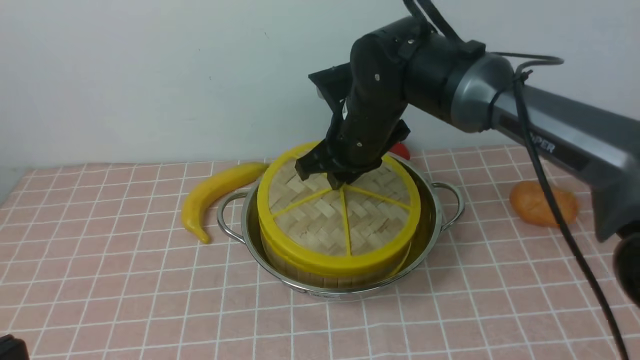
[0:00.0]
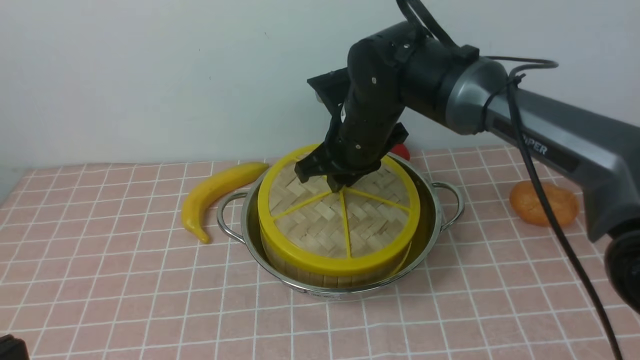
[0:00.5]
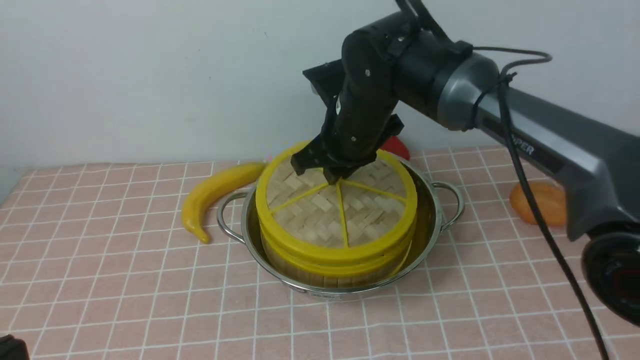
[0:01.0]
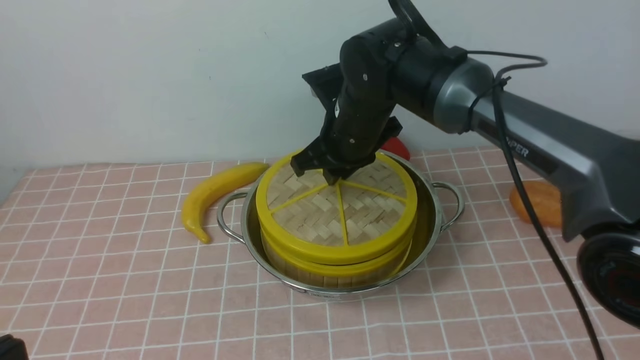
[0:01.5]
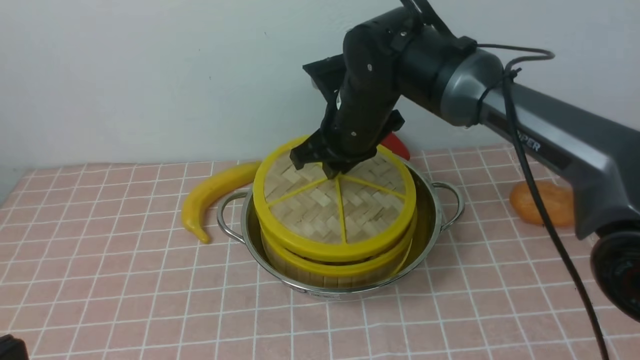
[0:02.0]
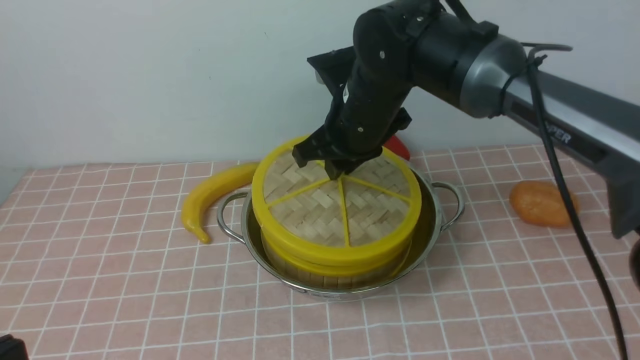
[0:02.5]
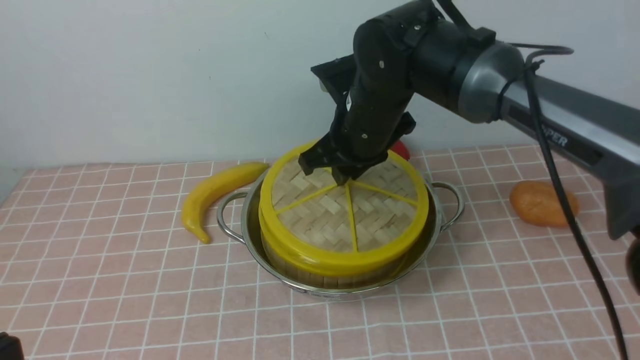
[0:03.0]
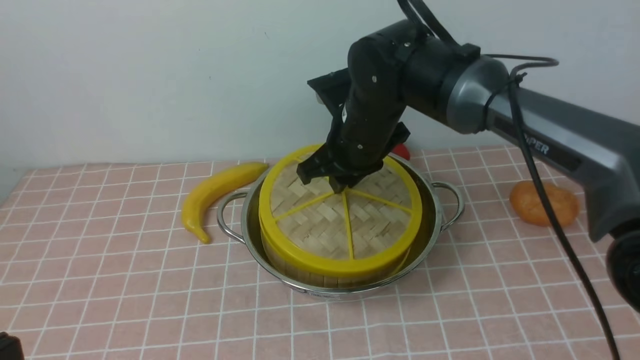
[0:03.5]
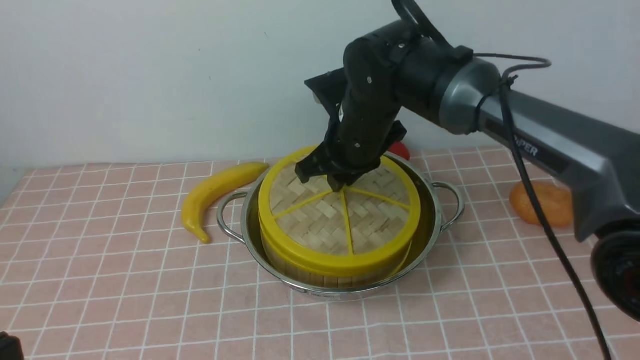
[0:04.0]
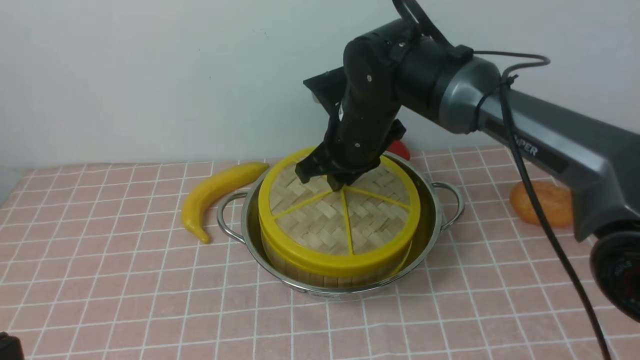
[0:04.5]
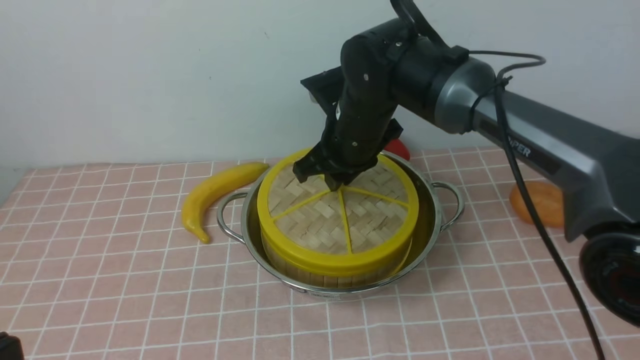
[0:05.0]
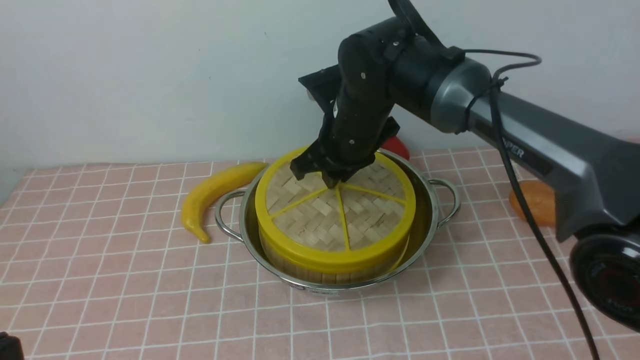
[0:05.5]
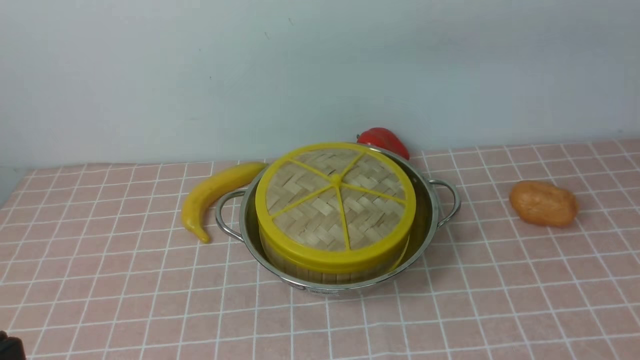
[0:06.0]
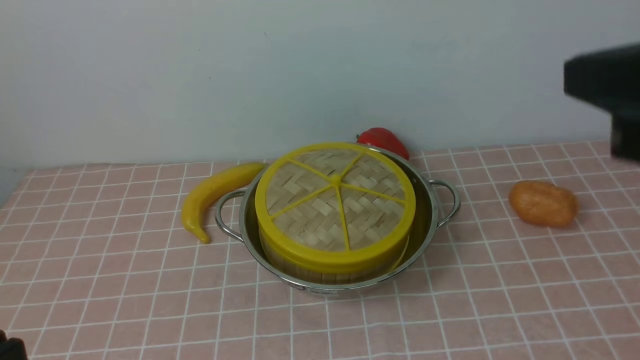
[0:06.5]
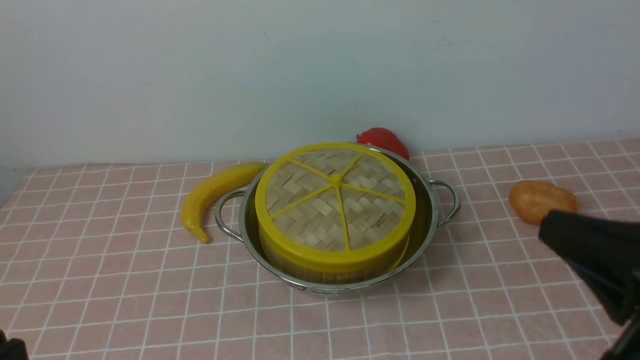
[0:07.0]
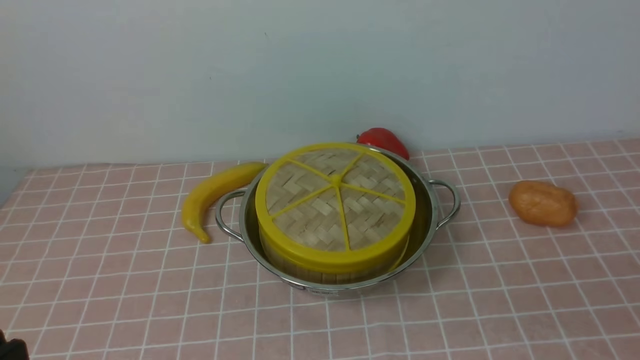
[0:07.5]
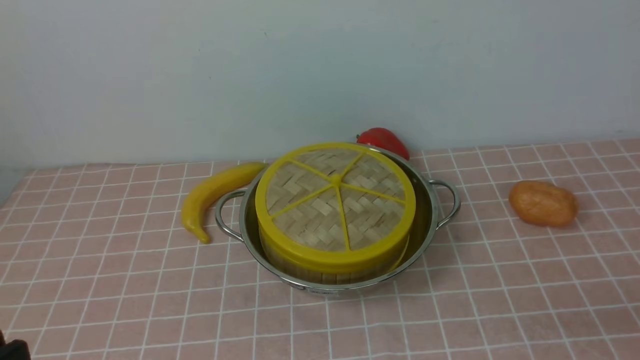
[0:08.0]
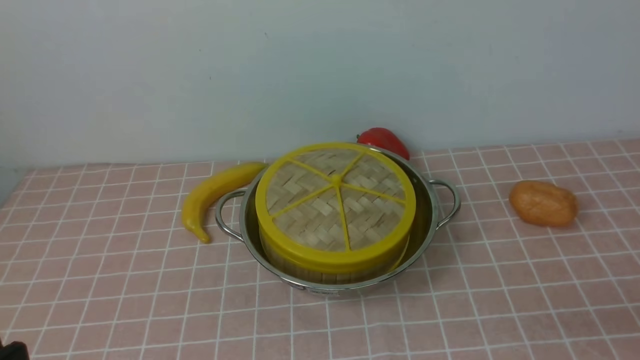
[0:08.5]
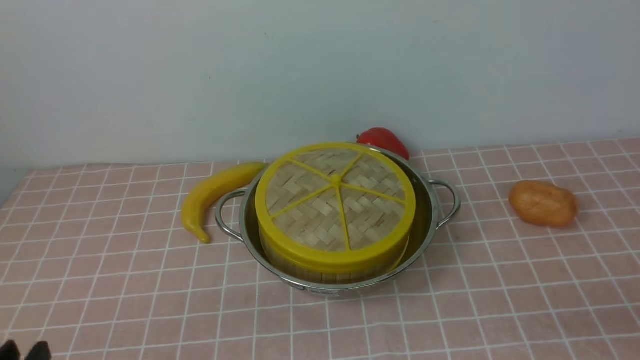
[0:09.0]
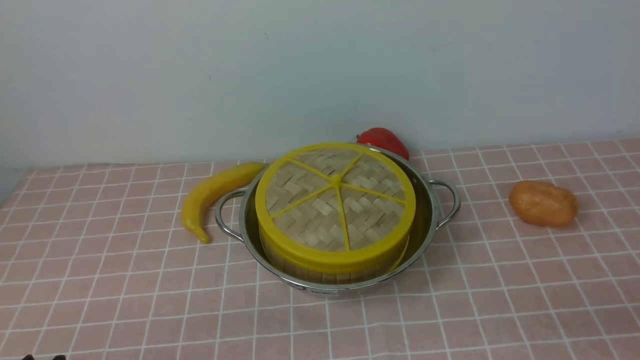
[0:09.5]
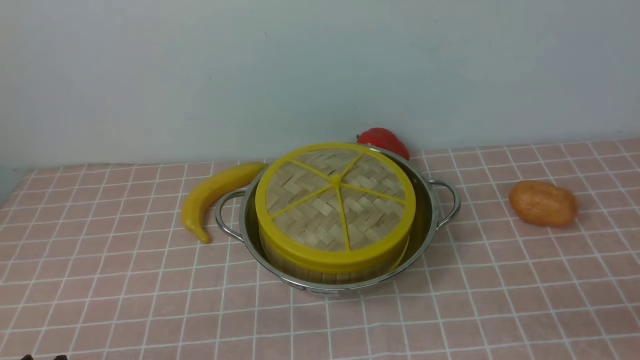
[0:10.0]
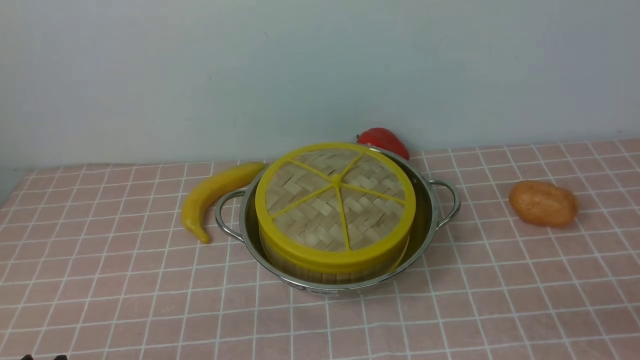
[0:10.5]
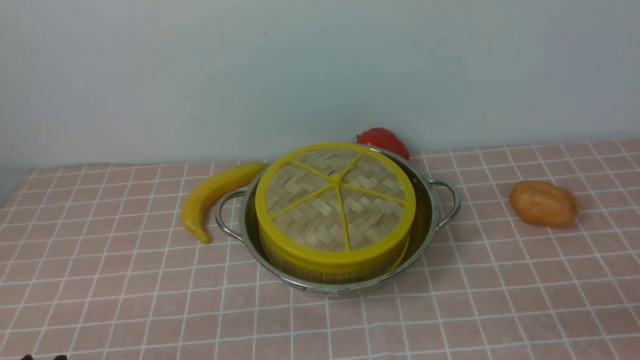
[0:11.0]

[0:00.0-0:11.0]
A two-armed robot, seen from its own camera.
Task of the whole recording: place the steamer in the pot on the pink tablecloth, and put the lid on the steamer.
Step, 0:00.0 to 0:05.5: use the right arm to place the steamer lid on the steamer.
0:00.0 to 0:05.5: There are only small adjustments of the grippers.
0:05.5 to 0:07.5: The right gripper travels backward and to the right by roughly 40 cm, and closes up.

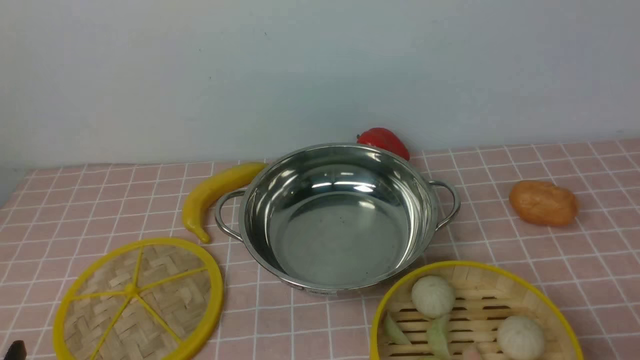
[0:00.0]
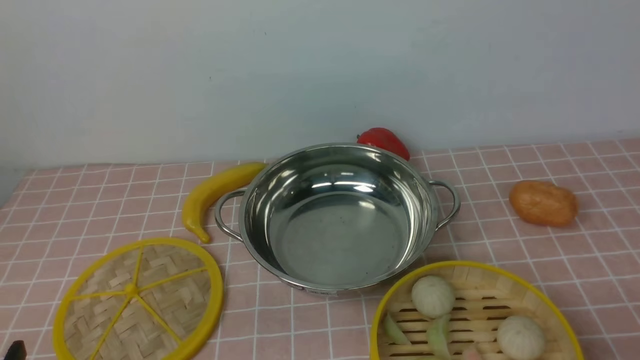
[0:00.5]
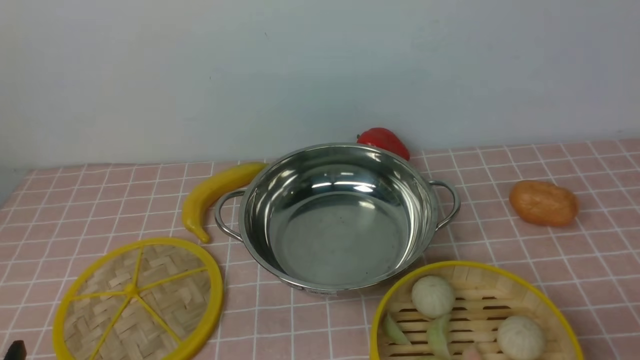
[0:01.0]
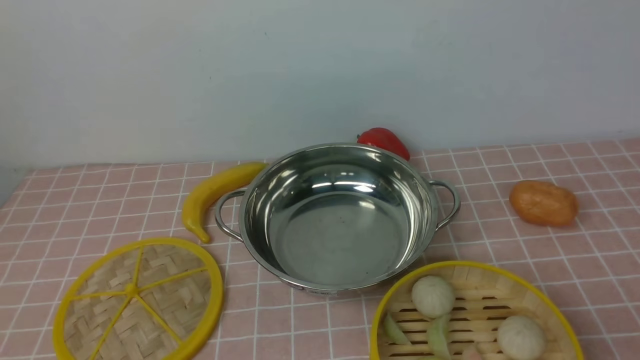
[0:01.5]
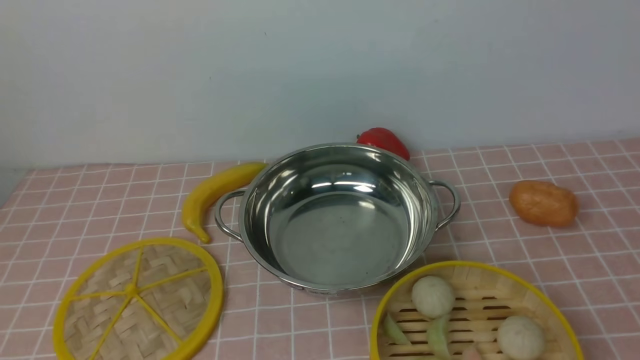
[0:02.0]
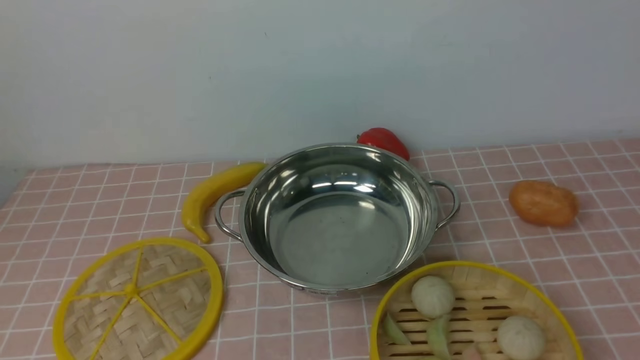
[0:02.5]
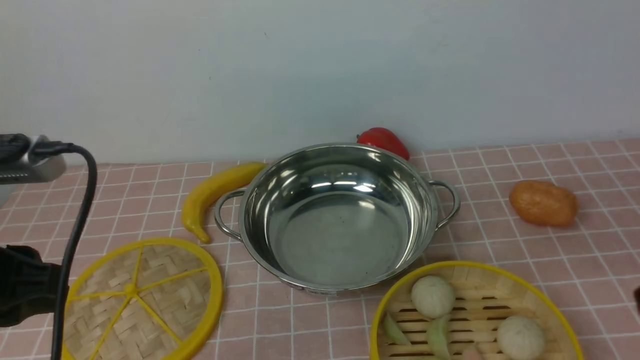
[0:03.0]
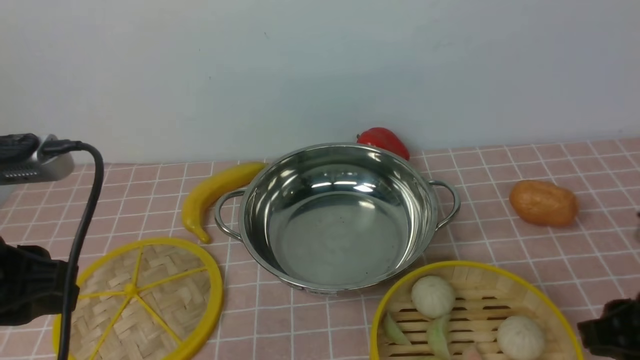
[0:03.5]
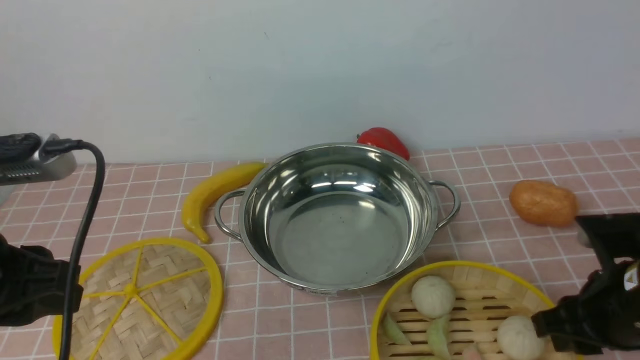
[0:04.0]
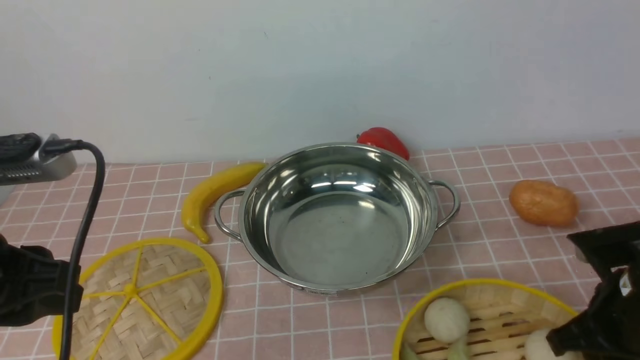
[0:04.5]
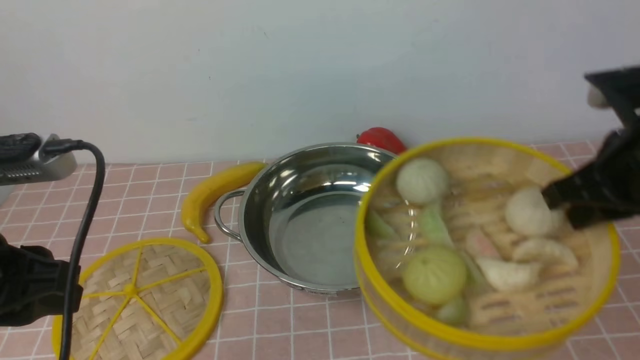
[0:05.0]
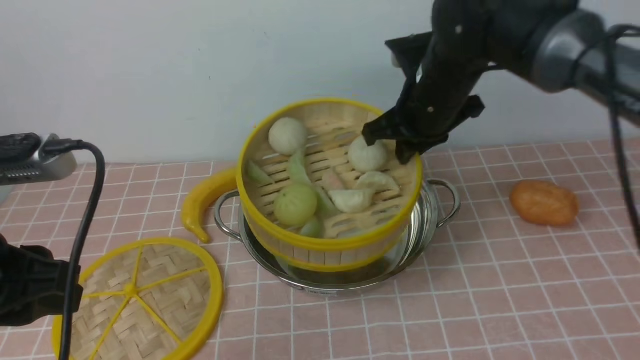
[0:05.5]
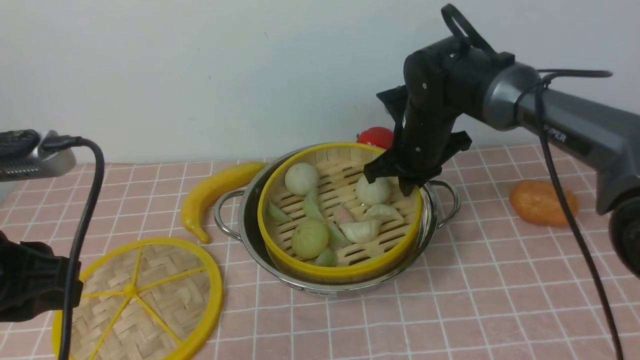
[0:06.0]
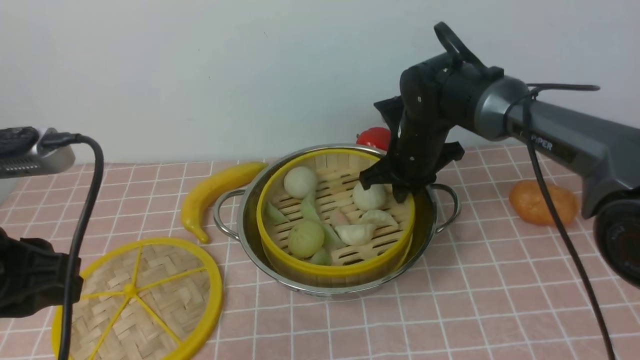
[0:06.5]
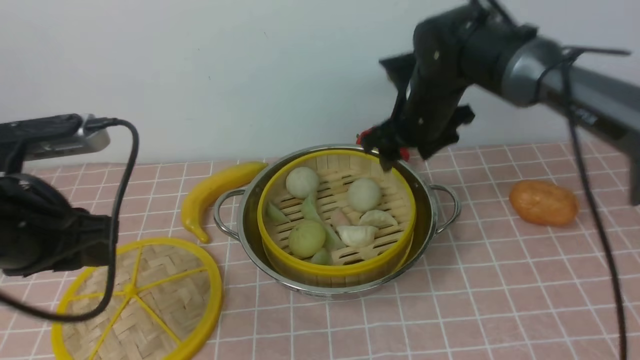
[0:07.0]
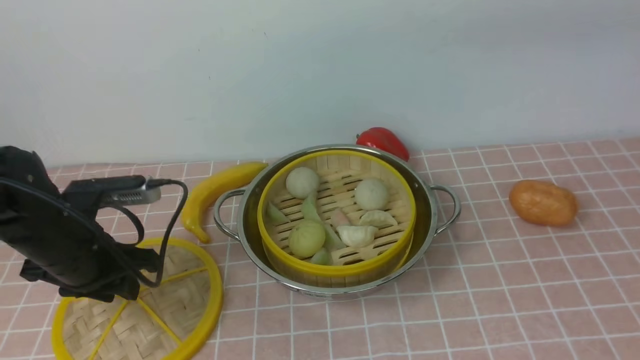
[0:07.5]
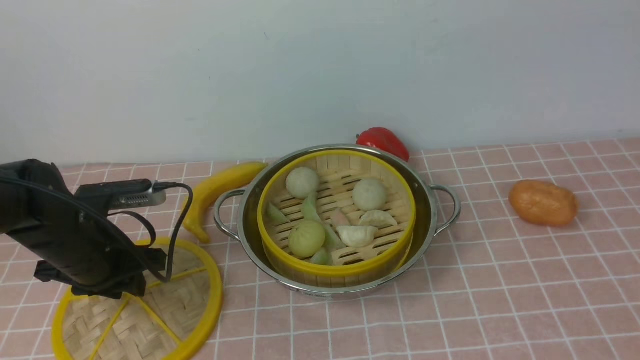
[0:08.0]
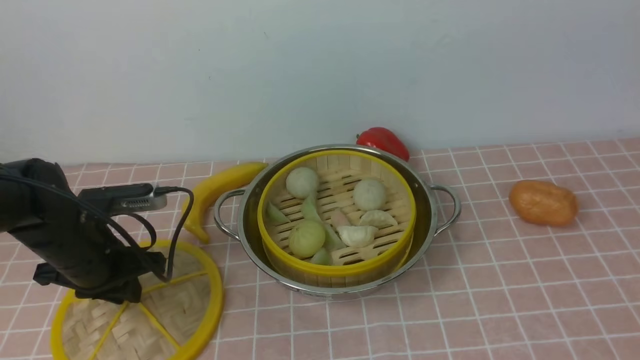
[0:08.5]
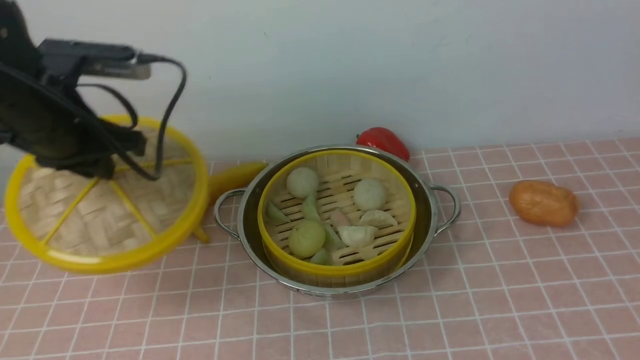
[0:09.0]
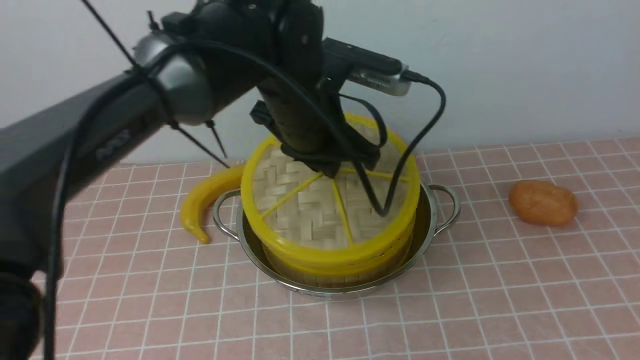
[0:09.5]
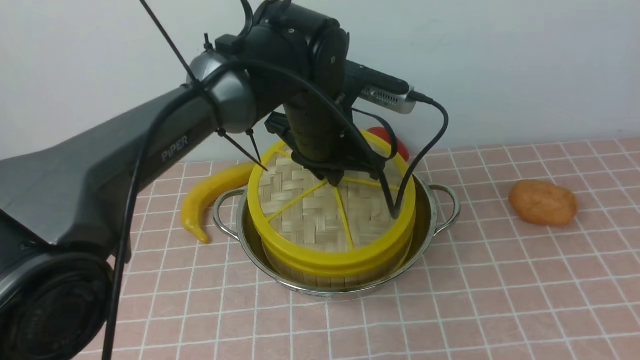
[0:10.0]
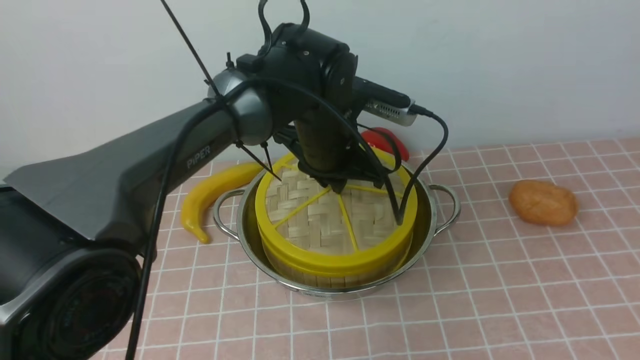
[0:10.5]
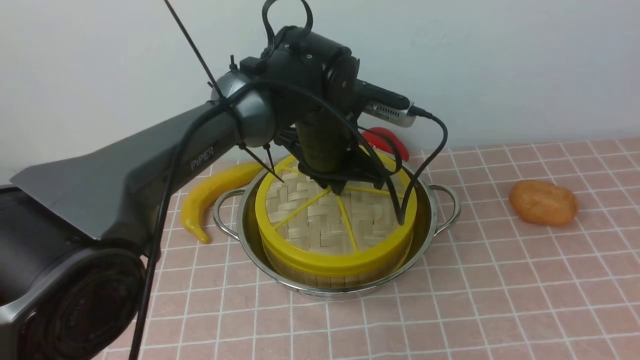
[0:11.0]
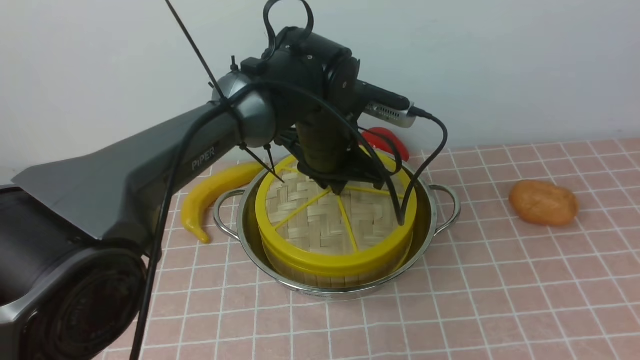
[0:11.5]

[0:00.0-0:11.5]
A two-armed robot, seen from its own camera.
Task of the whole recording: place the steamer in the pot on the pink tablecloth, and put the lid on the steamer.
Step, 0:00.0 to 0:04.5: use the right arm to lift the steamer closest to it.
Step, 0:05.0 to 0:06.5: use the right arm to put the steamer into the iron steamer pot in the middle.
Step, 0:07.0 to 0:08.5: use the left arm to lift the lid of the steamer.
0:02.0 to 0:04.0: The left gripper shifts some 15 cm forward, while the right gripper travels forward, downward and to the left by about 25 cm.
0:04.0 to 0:06.0: The right gripper shifts approximately 25 cm forward and to the left.
0:06.0 to 0:07.5: The right gripper moves upward and backward, some 35 cm, and opens, while the left gripper is displaced downward and forward by approximately 20 cm.
0:07.5 to 0:09.5: The left gripper shifts about 25 cm to the right and upward. Meanwhile the right gripper shifts about 25 cm backward and to the right.
0:09.5 to 0:11.5: The left gripper is displaced downward by roughly 5 cm.
